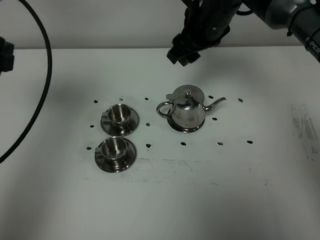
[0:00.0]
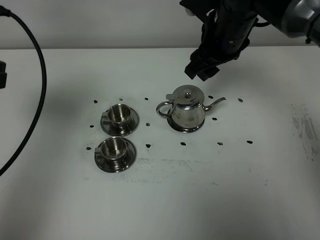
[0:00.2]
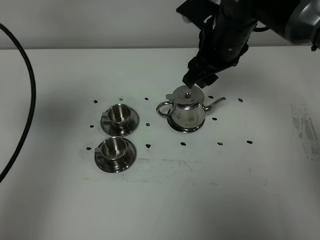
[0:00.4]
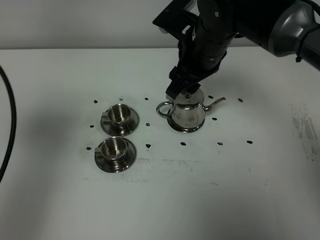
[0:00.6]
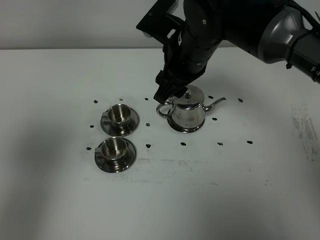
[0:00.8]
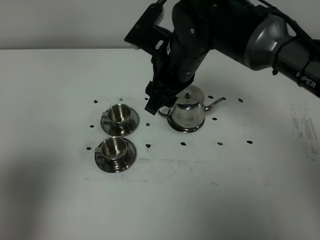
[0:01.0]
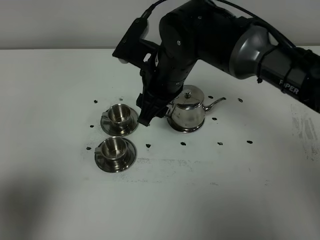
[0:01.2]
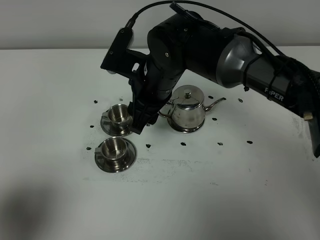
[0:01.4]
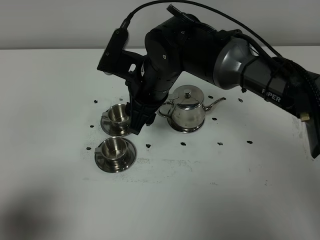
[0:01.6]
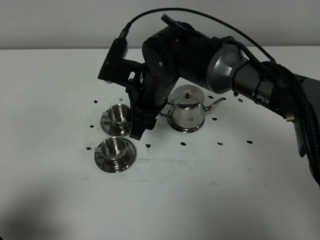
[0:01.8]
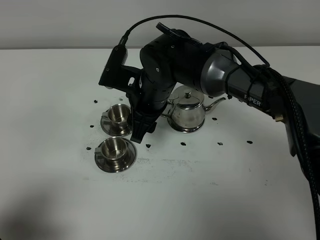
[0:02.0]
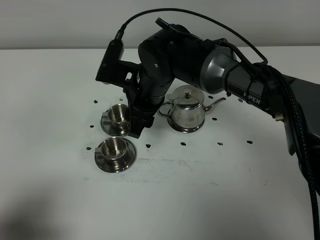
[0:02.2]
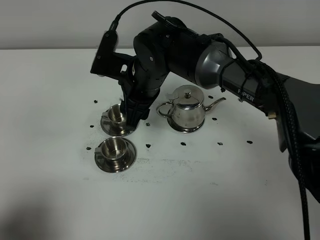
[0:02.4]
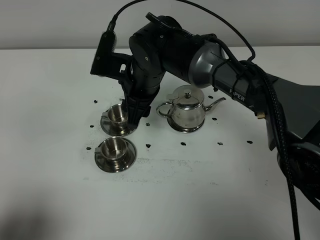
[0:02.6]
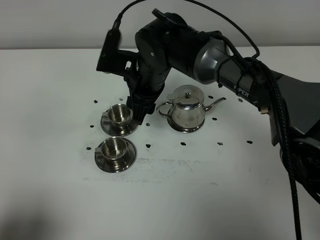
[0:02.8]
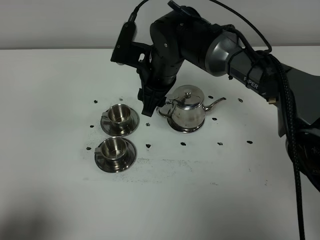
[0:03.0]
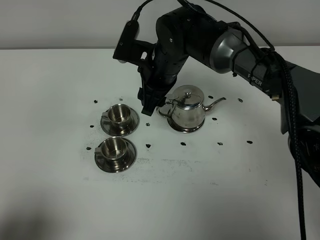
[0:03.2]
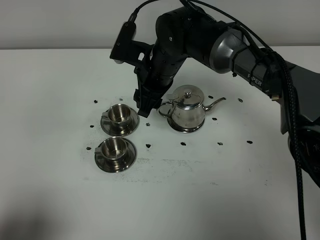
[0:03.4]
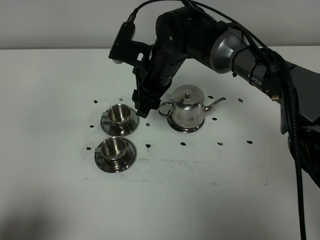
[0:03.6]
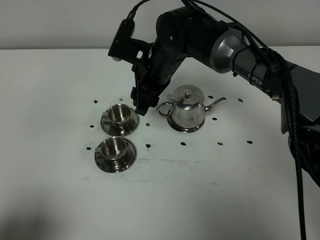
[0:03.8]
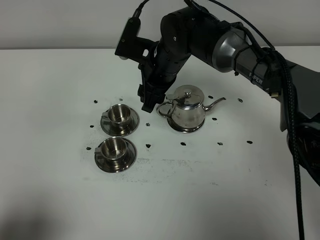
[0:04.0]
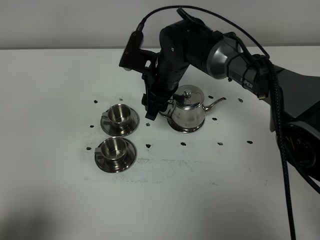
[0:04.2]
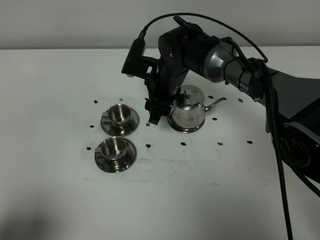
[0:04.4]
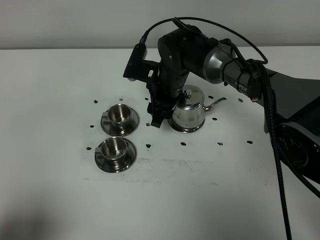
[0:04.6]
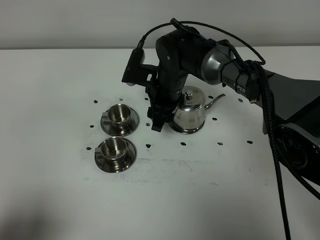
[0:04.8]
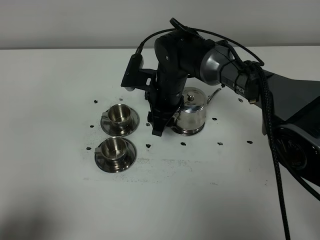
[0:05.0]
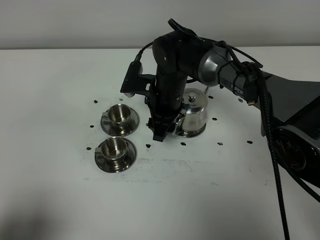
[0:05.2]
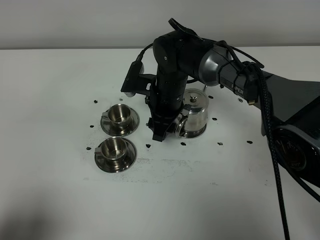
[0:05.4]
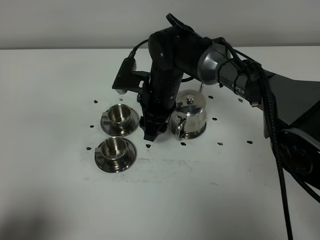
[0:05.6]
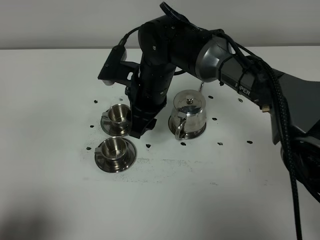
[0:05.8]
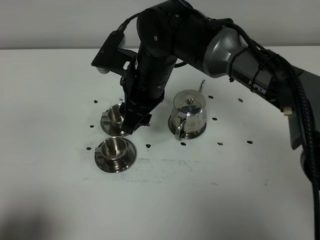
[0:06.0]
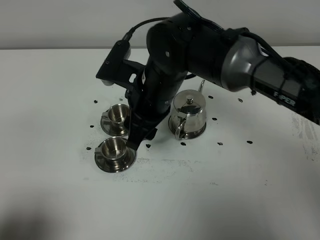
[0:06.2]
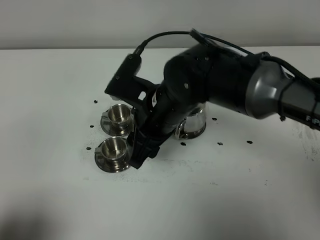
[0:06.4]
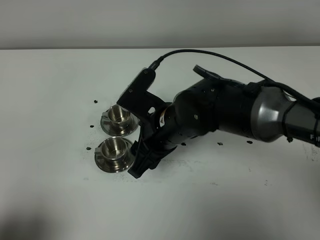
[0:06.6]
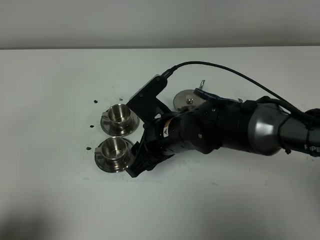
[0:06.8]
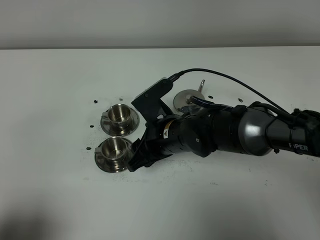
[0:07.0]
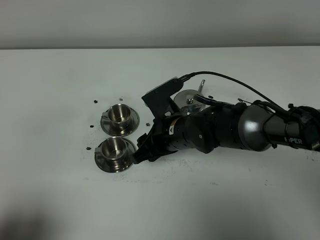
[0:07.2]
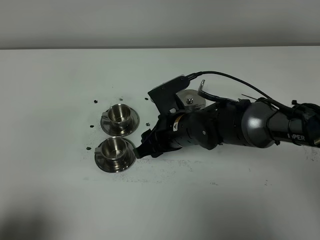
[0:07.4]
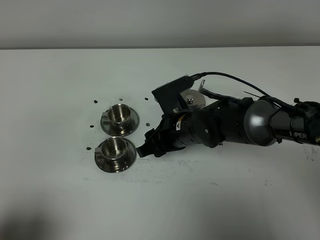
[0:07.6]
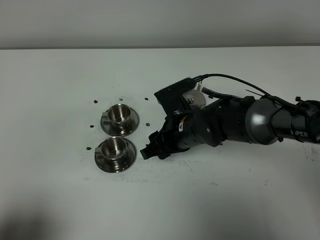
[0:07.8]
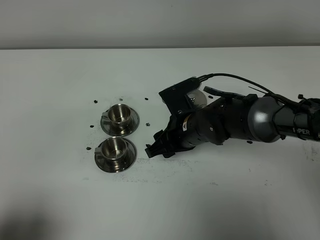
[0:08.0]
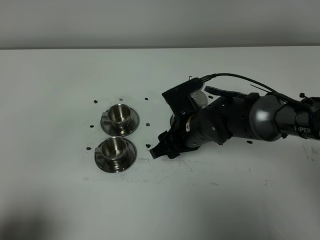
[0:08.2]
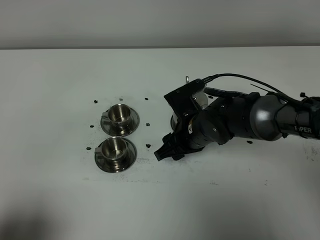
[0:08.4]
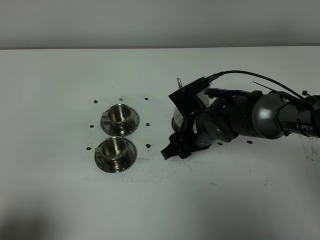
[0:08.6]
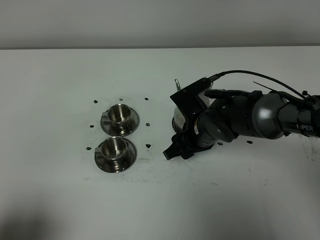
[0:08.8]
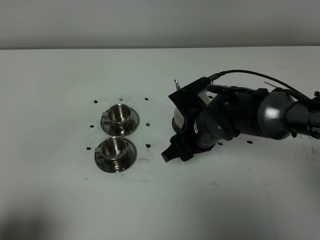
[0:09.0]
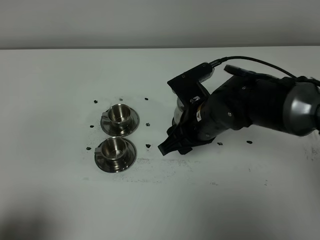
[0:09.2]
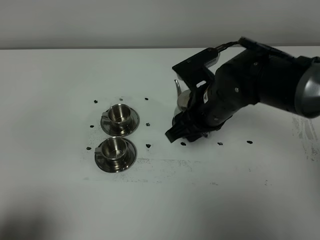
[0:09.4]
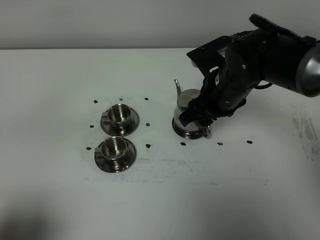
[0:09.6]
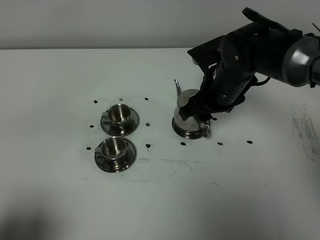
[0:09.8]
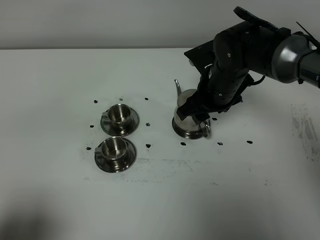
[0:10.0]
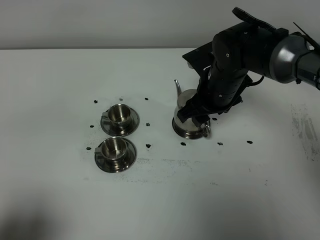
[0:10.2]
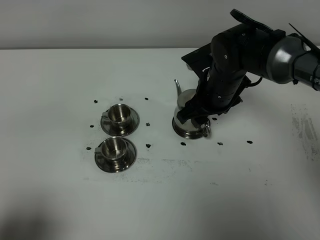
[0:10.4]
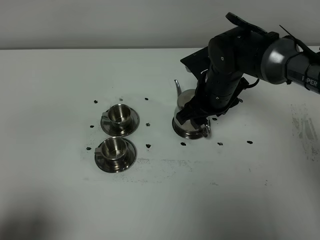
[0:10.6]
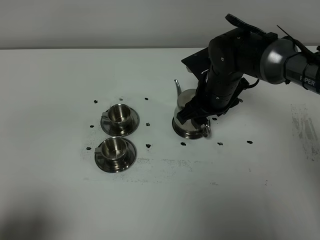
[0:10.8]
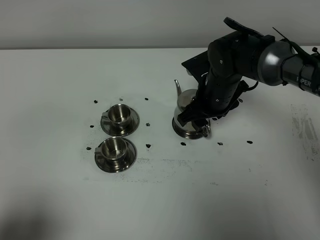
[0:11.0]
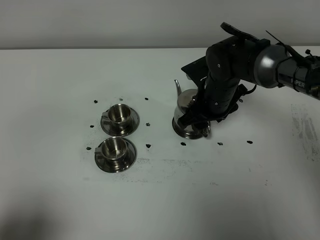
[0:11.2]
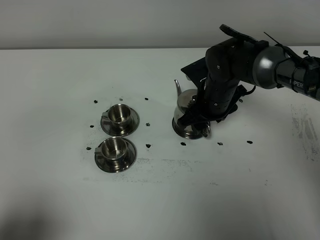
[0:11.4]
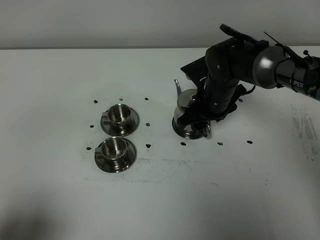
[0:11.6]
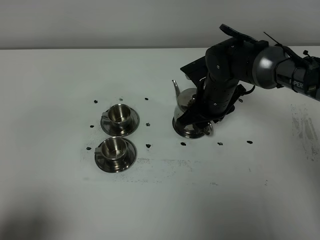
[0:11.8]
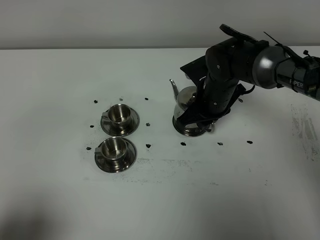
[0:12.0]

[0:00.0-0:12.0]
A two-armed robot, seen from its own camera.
Task of the whole recording: grasp the stainless steel teapot and pour the tea into the two stainless steel teacups one by one, put the stainless steel teapot back in its original place.
0:00.0 to 0:01.6: The left gripper moves backward and downward, roughly 25 cm; the right gripper moves to the left, backward and downward, approximately 15 cm.
0:01.6 to 0:03.0: The right gripper goes some 5 cm forward.
0:03.0 to 0:04.4: The right gripper travels downward by some 5 cm.
0:04.4 to 0:06.0: The right gripper moves upward and backward, about 10 cm.
0:06.0 to 0:07.6: The right gripper moves downward and to the right, roughly 15 cm.
0:07.6 to 0:09.0: There are only small adjustments of the grippers.
0:09.0 to 0:10.4: The right gripper travels forward by about 5 cm.
0:10.4 to 0:12.0: The right gripper closes its fingers.

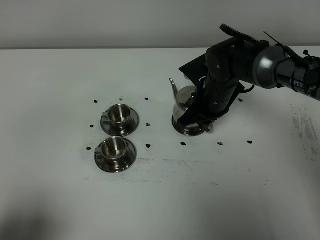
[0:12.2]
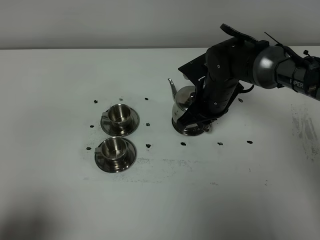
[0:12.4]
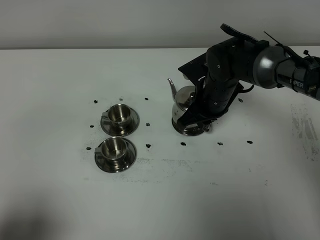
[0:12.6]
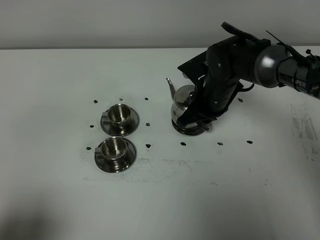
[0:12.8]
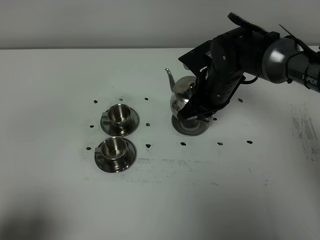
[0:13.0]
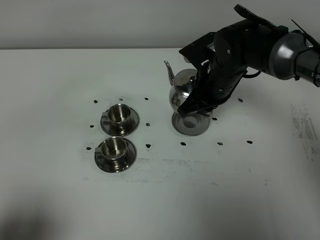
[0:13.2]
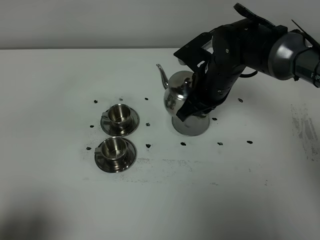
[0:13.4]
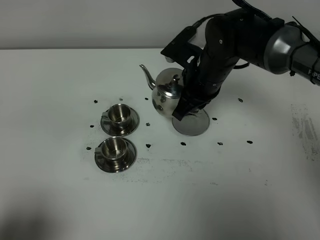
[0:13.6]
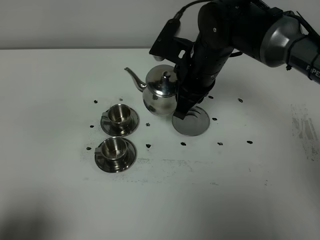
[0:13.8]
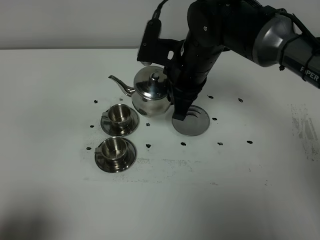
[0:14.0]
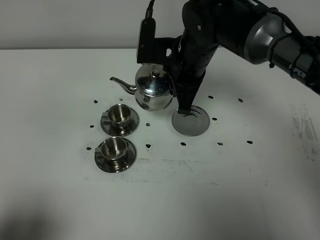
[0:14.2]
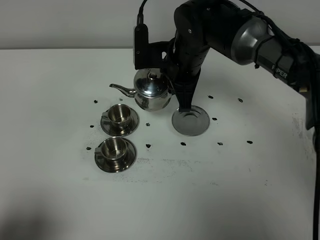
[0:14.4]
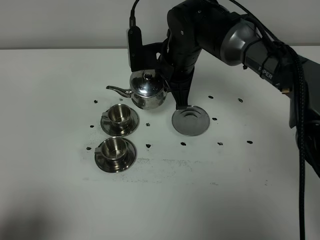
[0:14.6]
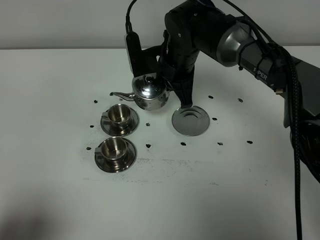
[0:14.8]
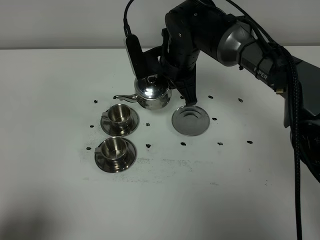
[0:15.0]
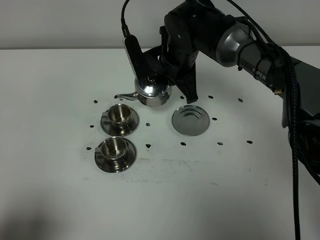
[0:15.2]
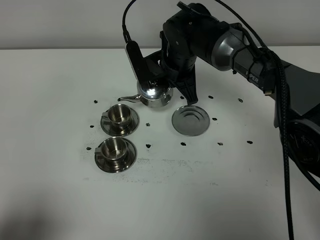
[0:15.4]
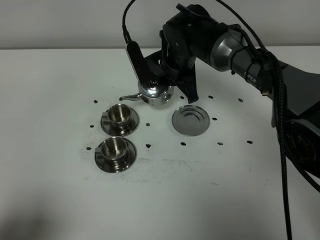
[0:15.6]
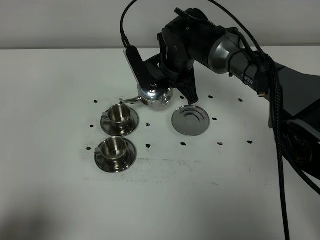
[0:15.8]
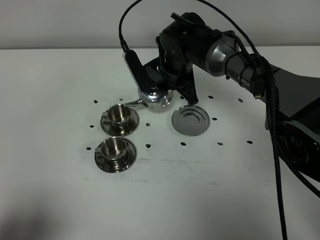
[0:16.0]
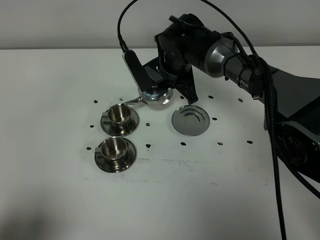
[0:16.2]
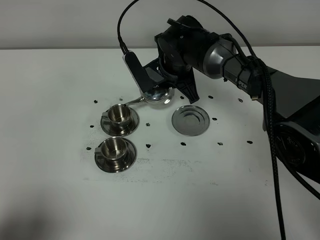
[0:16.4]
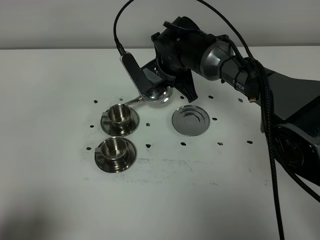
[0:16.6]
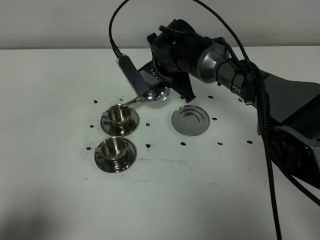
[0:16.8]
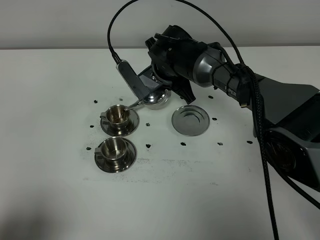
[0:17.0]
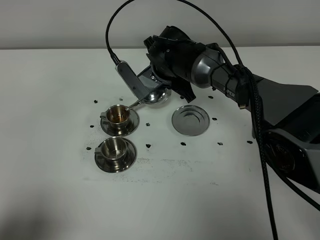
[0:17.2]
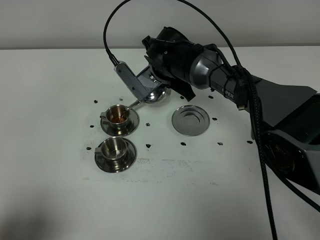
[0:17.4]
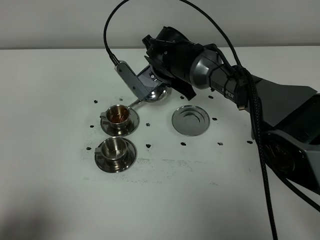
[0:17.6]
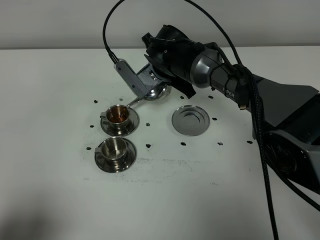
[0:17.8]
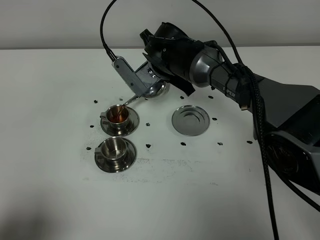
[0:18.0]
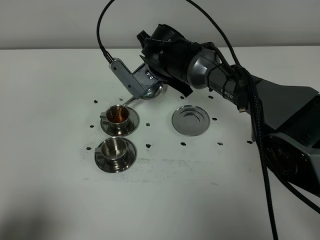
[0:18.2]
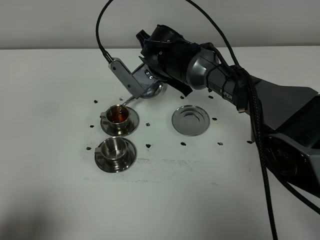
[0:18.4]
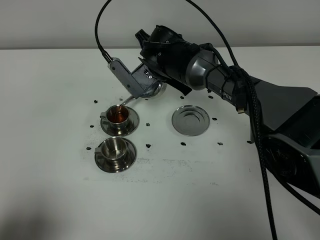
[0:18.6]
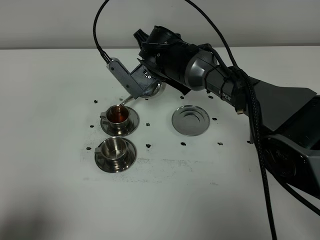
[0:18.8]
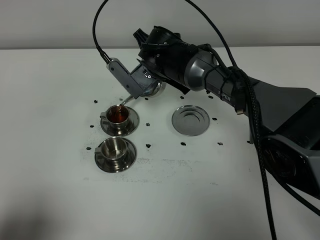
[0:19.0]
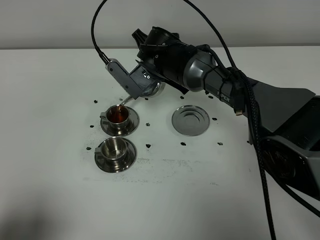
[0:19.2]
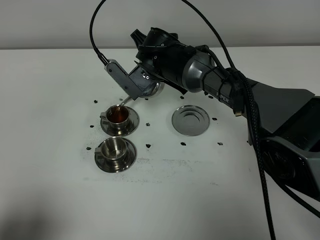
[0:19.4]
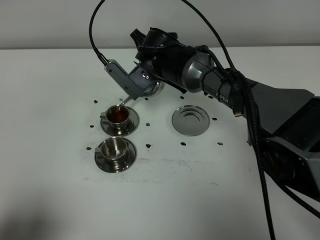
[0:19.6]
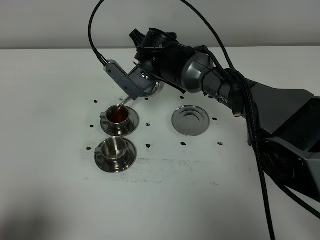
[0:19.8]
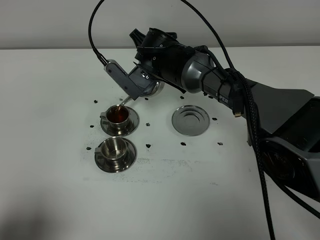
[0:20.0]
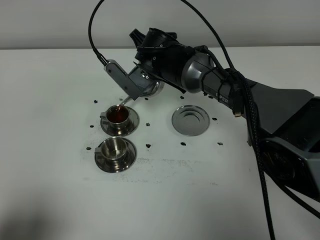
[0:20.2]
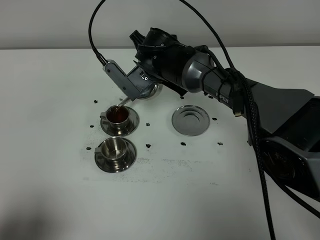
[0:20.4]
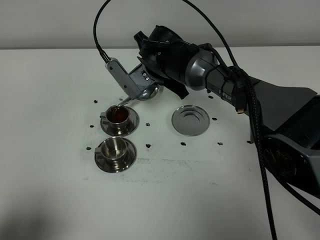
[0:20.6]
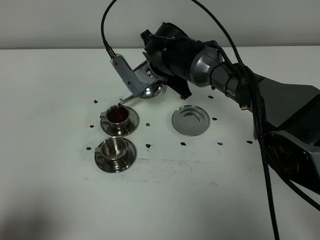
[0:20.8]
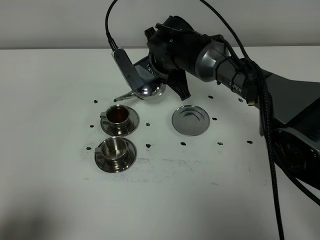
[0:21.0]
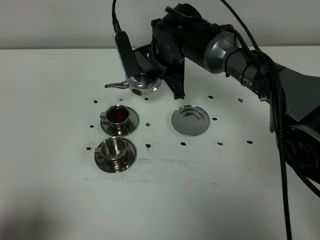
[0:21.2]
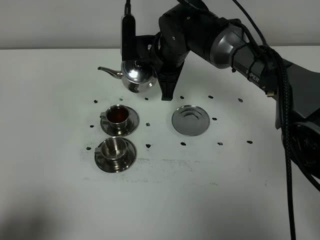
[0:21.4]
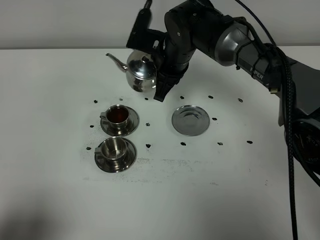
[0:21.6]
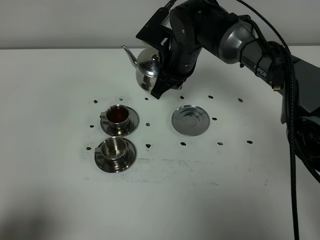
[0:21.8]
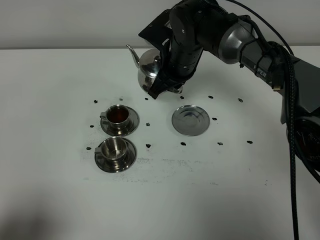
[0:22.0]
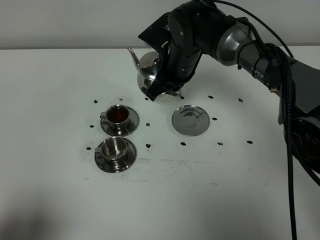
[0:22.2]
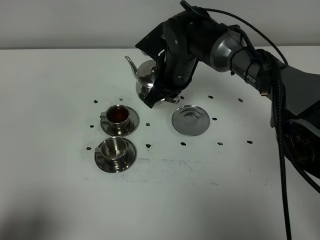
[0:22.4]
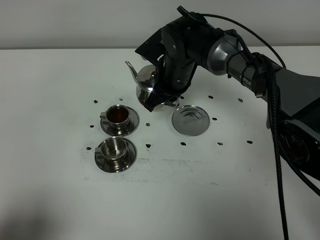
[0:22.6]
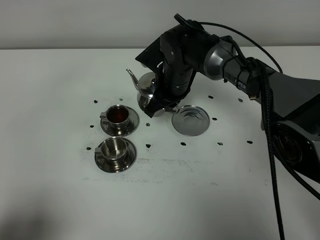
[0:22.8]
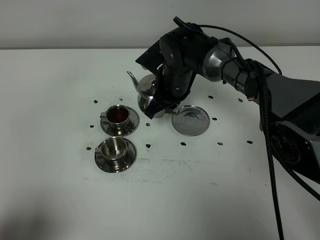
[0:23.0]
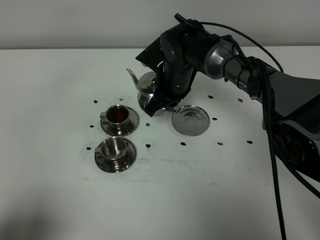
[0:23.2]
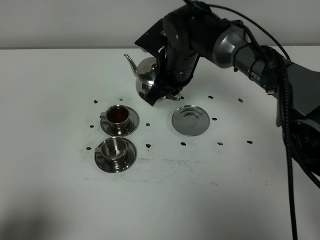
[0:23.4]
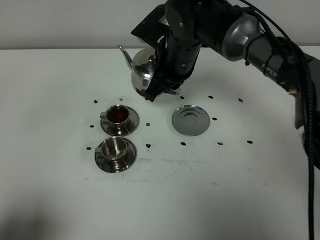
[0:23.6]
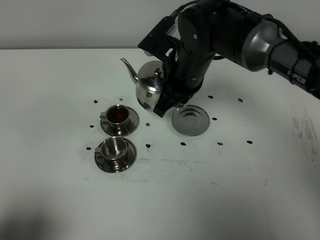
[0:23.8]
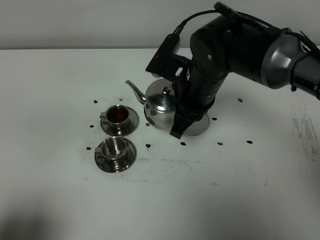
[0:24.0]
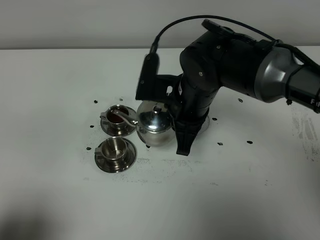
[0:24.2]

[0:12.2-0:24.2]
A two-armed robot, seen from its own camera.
Task of the whole recording: grasp the stainless steel teapot and pour the tea into the two stainless steel teacups one by one, put the stainless steel teapot back in its original place.
Step, 0:13.0 to 0:20.8: Pour tea into the teacup with the right gripper.
0:12.2 to 0:13.8: The right gripper moves upward, roughly 10 cm.
0:13.8 to 0:15.2: The right gripper goes roughly 5 cm forward.
0:15.2 to 0:16.6: The grippers stay close to where they were, moving slightly.
0:16.6 to 0:19.8: The grippers make only small movements.
0:22.6 to 0:24.2: The right gripper goes approximately 15 cm backward and upward.
